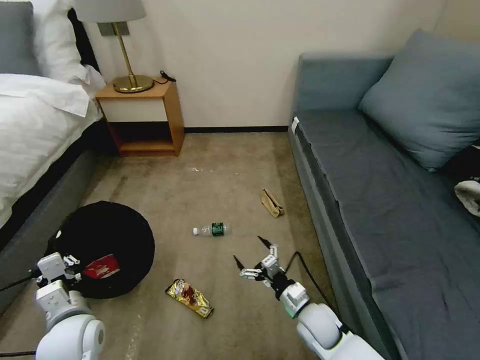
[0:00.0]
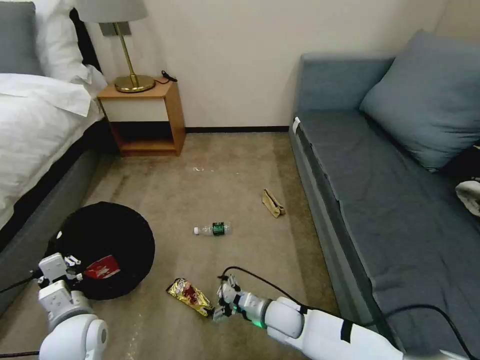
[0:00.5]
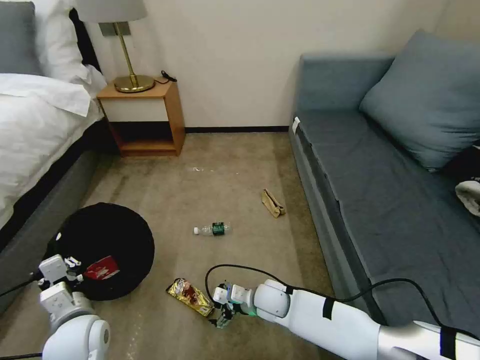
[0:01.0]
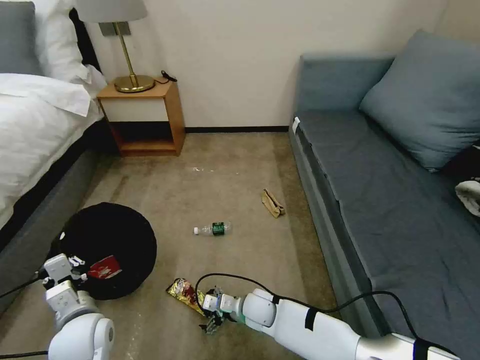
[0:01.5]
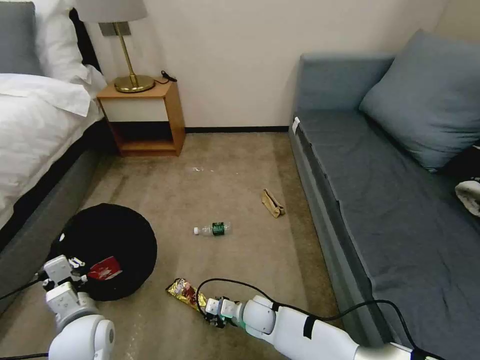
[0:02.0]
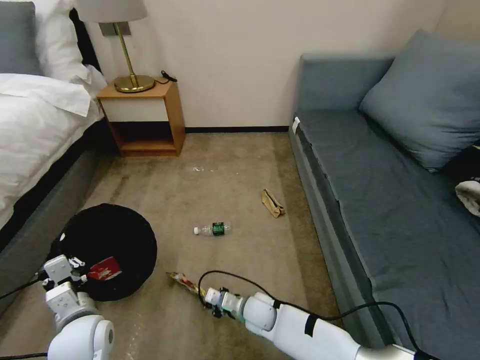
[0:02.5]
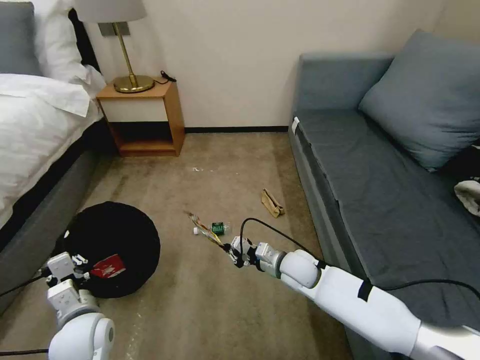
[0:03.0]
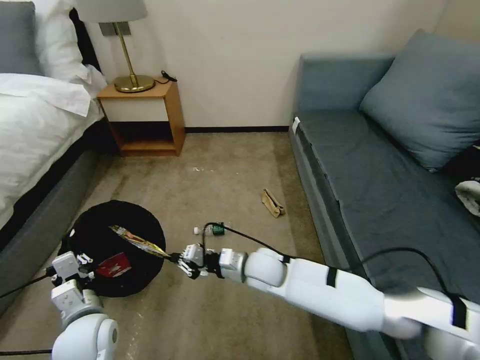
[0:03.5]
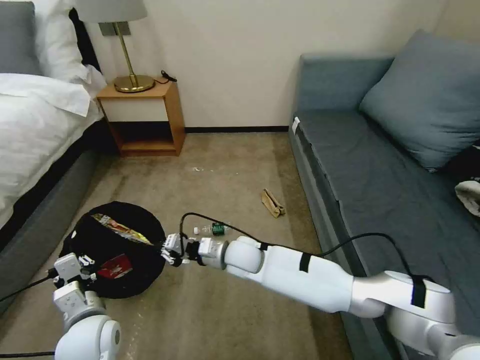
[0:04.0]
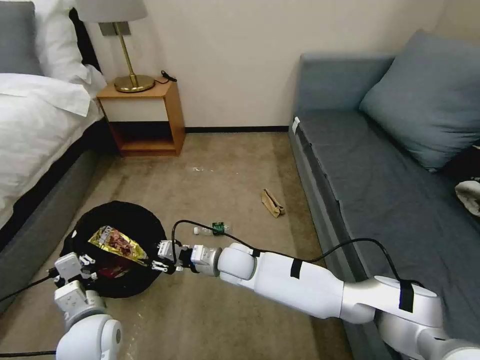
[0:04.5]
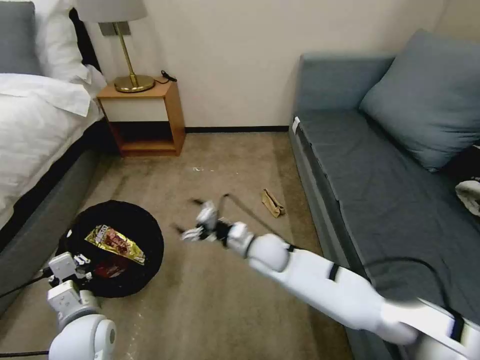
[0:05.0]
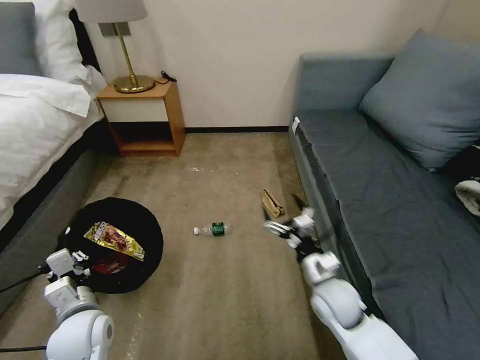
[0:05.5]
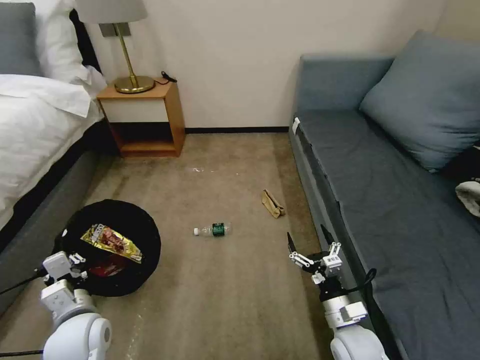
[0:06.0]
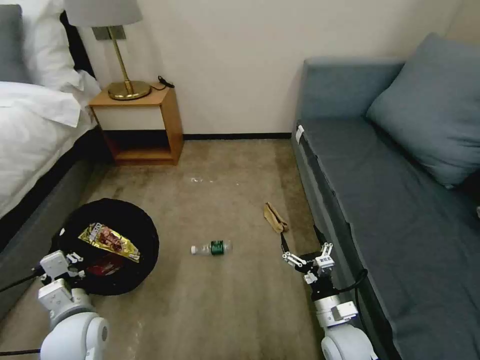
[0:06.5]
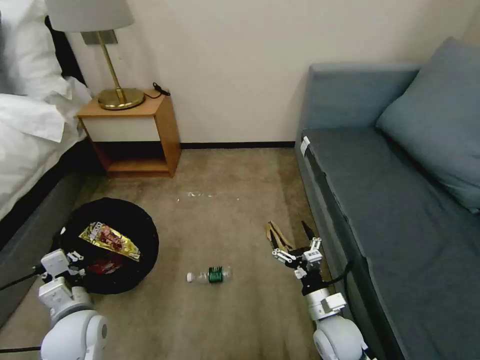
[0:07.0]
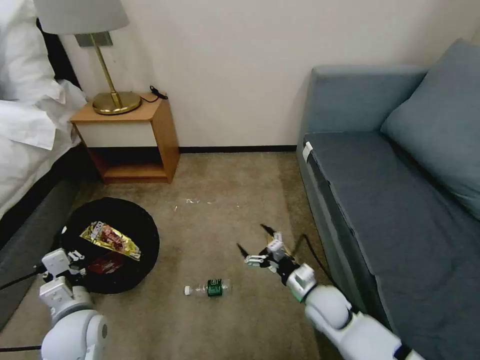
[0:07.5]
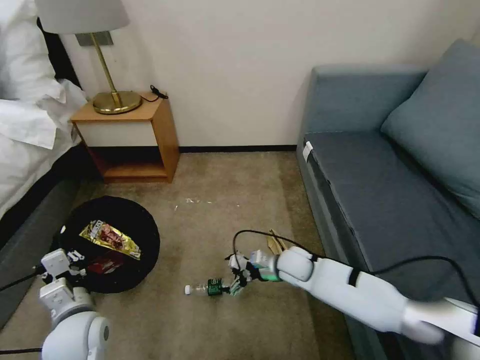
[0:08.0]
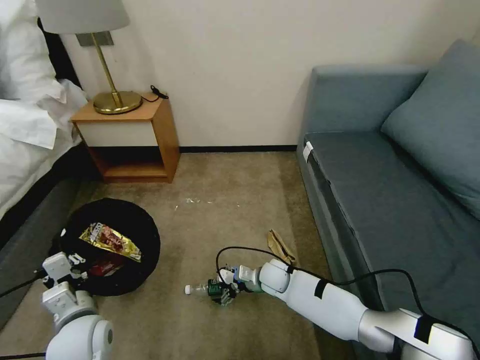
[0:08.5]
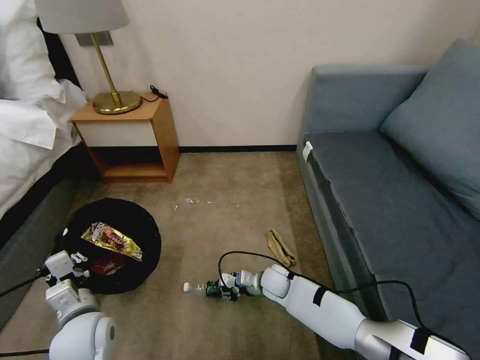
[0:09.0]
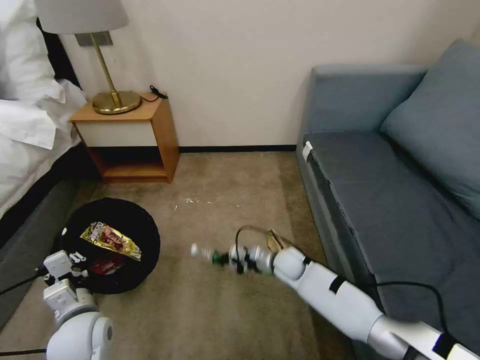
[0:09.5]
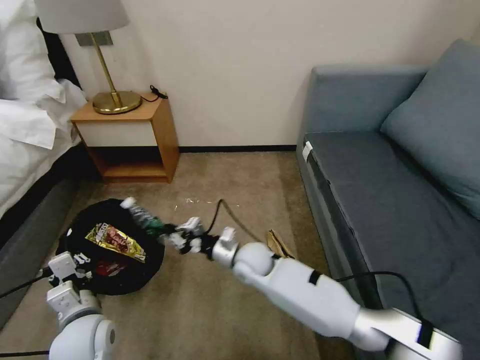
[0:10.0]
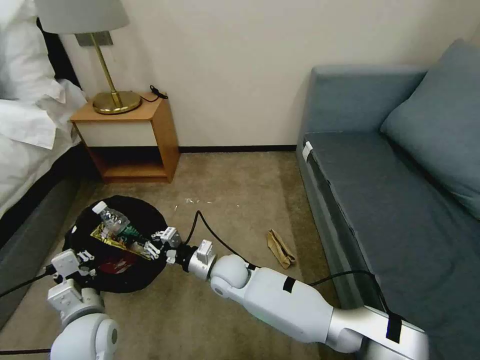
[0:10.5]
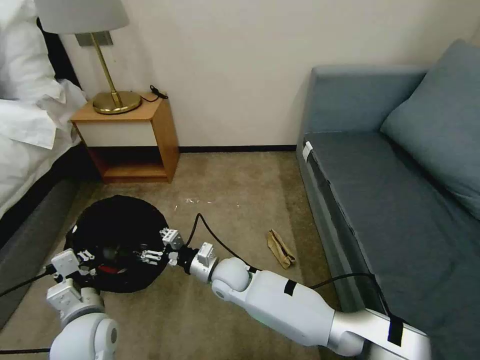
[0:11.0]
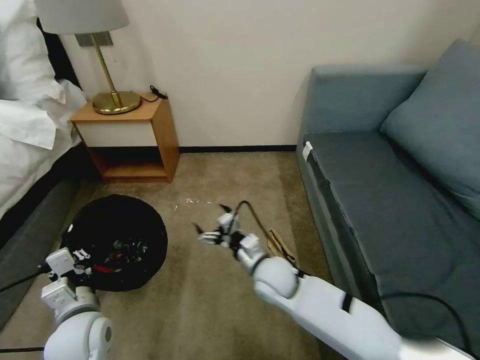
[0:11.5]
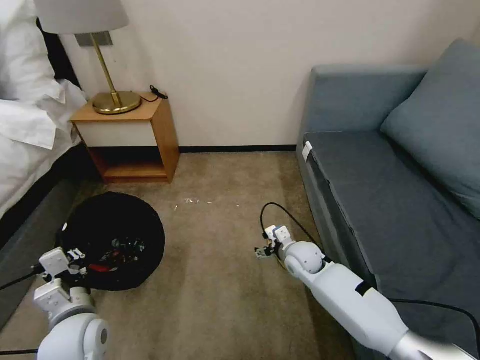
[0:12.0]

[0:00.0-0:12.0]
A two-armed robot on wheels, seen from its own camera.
Task of the whole recording: Pick up the trash bin, then pick up the garbage on the floor and place it into the trash bin.
0:00.0 to 0:02.0: The right gripper travels to the left and downward by roughly 15 cm, and closes up.
0:02.0 to 0:04.0: The right gripper shifts some 20 cm upward and forward, and closes up.
0:04.0 to 0:06.0: The right gripper moves to the right and backward, roughly 30 cm, and opens up.
0:06.0 to 0:08.0: The right gripper goes some 20 cm forward and to the left.
0:08.0 to 0:10.0: The right gripper shifts approximately 10 cm to the left, reaches some 10 cm downward, then returns, and closes.
0:10.0 to 0:12.0: The right gripper travels to the right by some 15 cm, and opens its fingers.

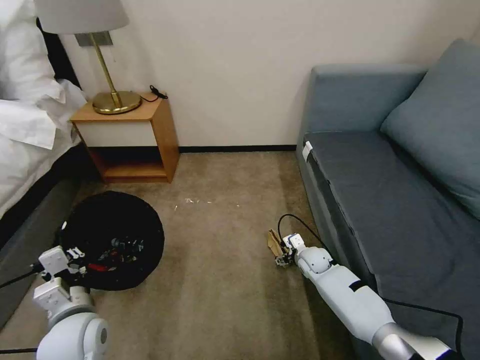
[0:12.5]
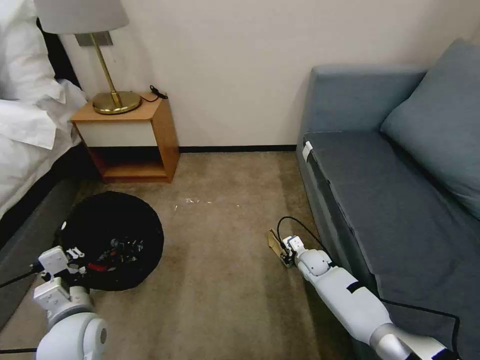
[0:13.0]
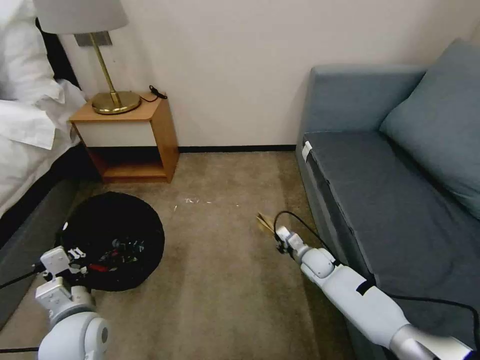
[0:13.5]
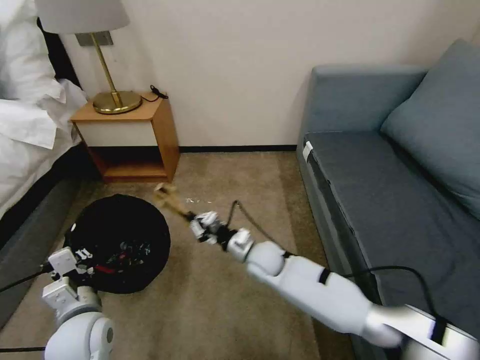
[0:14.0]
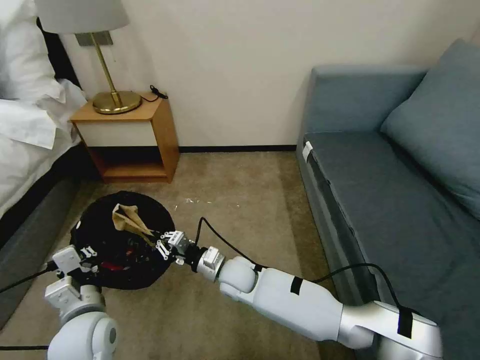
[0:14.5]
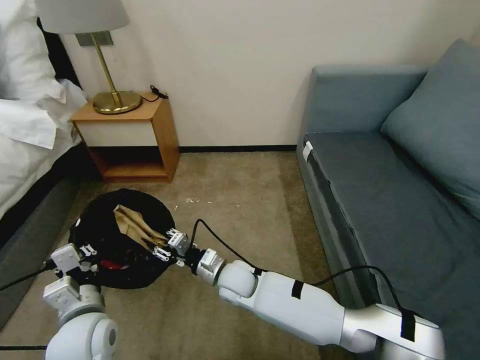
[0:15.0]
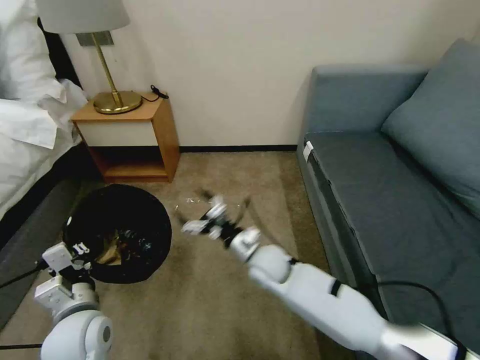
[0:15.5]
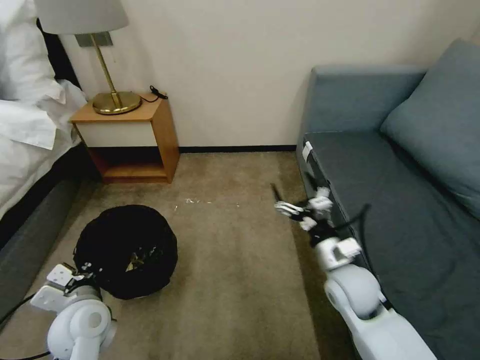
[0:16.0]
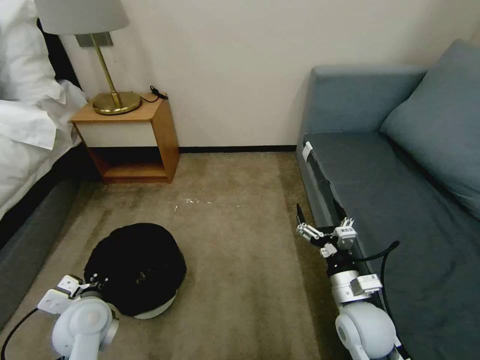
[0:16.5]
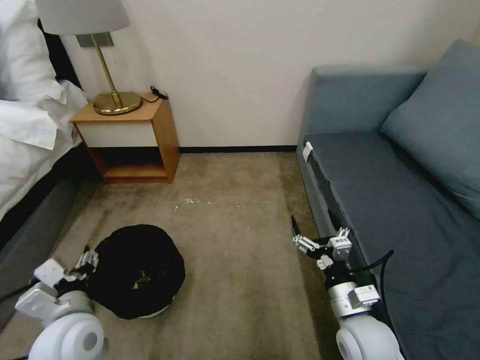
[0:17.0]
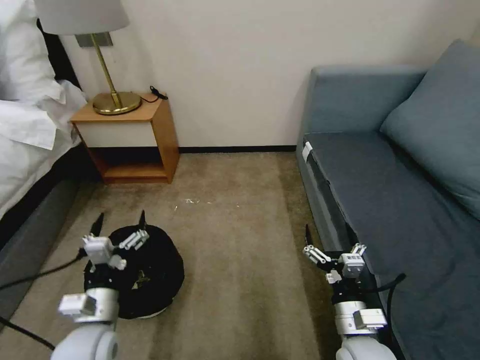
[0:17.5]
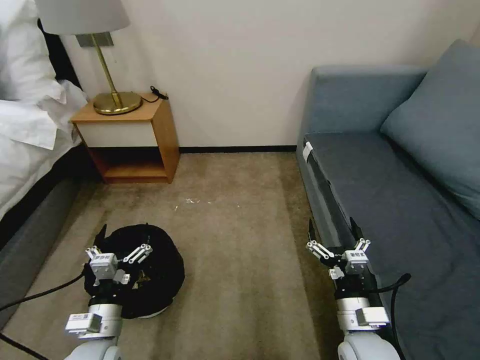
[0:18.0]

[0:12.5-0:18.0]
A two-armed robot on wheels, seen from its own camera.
Task of the whole recording: Pick up the trash bin, then pick up the garbage on the floor and place it into the trash bin.
0:12.5 to 0:14.5: The right gripper shifts approximately 25 cm to the left, and closes its fingers.
0:14.5 to 0:16.0: The right gripper shifts approximately 25 cm to the right, and opens.
0:16.0 to 0:18.0: The right gripper goes approximately 10 cm backward; the left gripper is displaced backward by approximately 5 cm, and opens.
